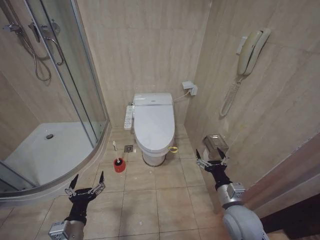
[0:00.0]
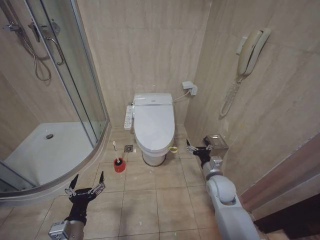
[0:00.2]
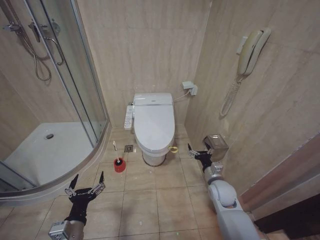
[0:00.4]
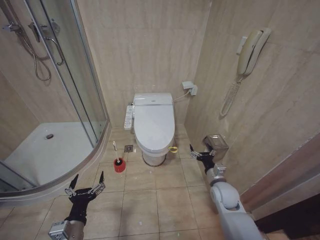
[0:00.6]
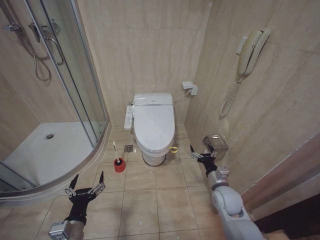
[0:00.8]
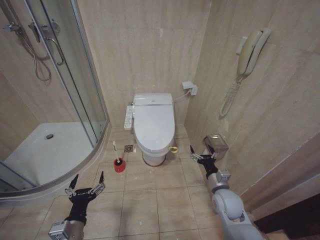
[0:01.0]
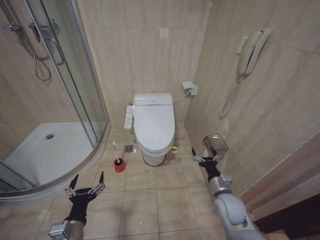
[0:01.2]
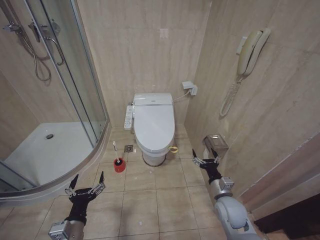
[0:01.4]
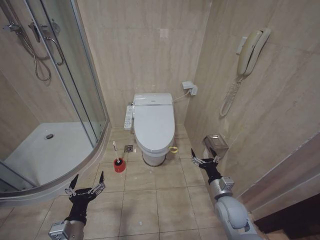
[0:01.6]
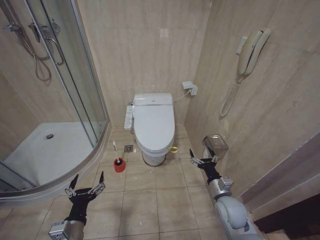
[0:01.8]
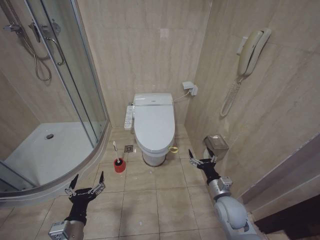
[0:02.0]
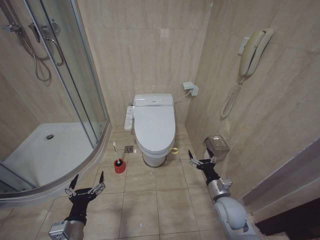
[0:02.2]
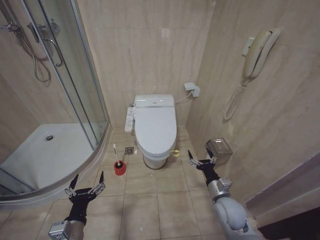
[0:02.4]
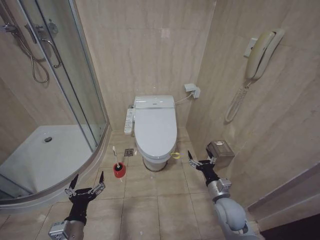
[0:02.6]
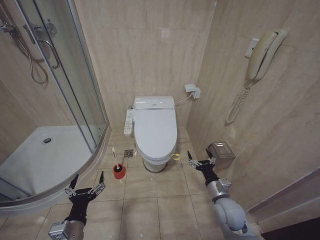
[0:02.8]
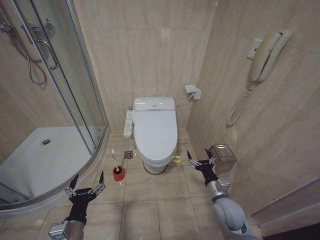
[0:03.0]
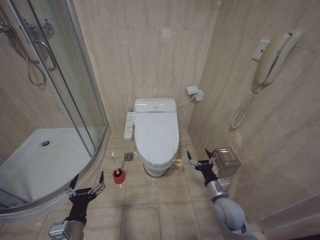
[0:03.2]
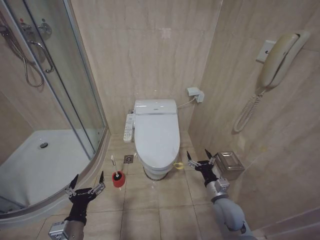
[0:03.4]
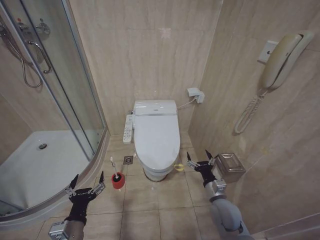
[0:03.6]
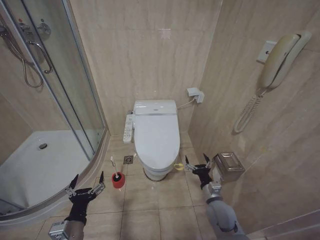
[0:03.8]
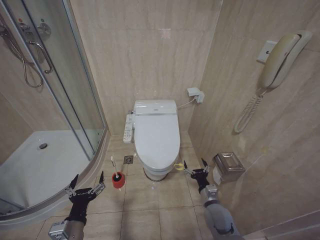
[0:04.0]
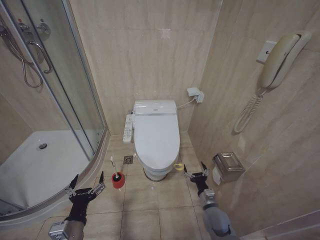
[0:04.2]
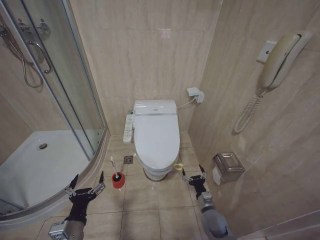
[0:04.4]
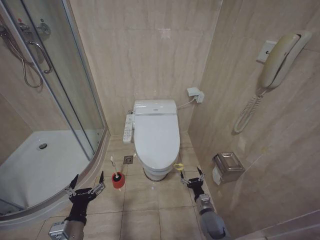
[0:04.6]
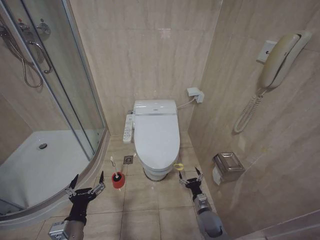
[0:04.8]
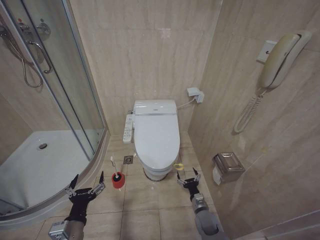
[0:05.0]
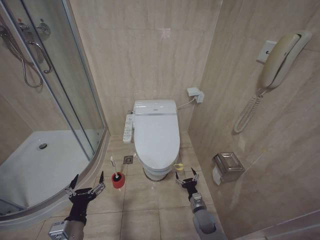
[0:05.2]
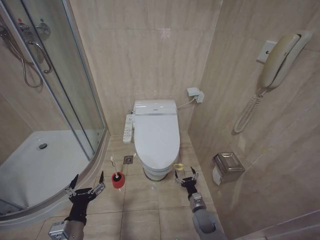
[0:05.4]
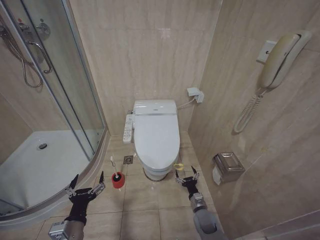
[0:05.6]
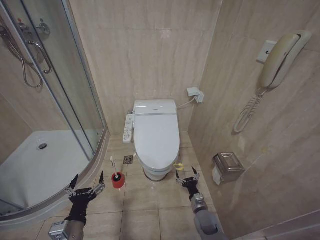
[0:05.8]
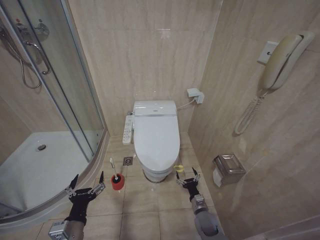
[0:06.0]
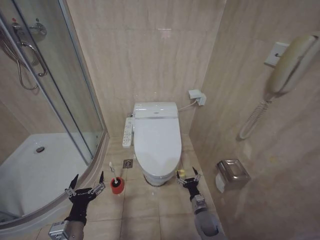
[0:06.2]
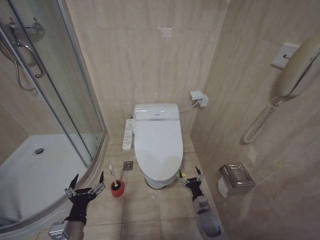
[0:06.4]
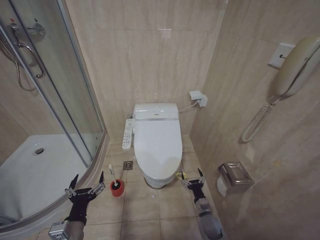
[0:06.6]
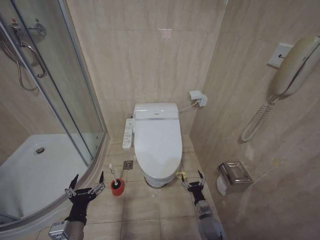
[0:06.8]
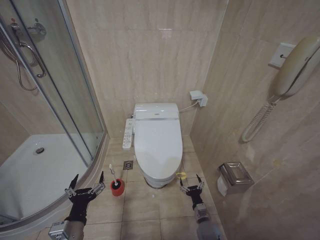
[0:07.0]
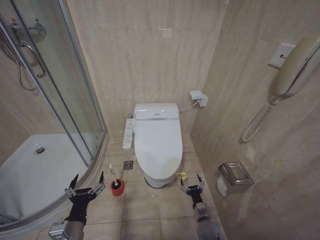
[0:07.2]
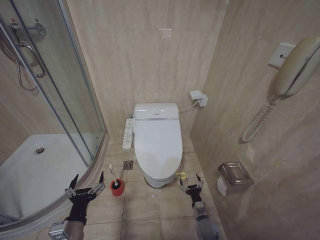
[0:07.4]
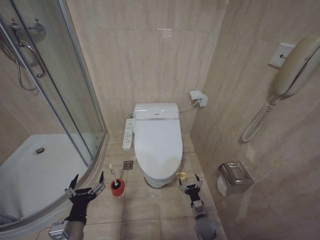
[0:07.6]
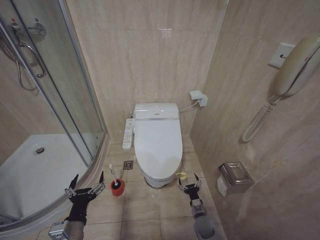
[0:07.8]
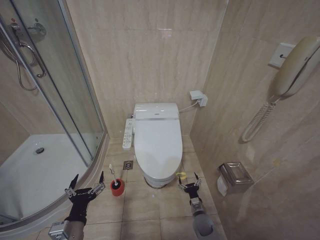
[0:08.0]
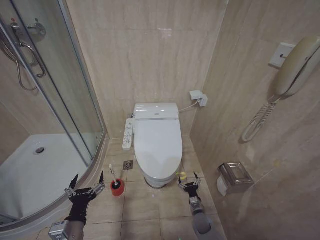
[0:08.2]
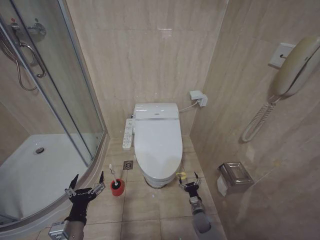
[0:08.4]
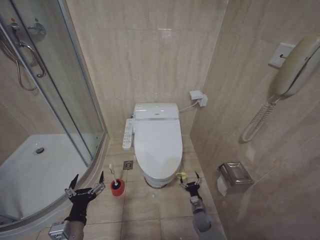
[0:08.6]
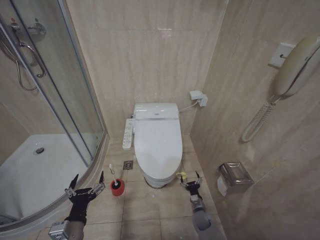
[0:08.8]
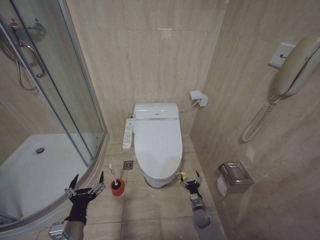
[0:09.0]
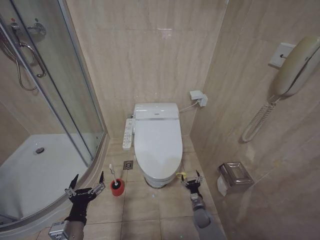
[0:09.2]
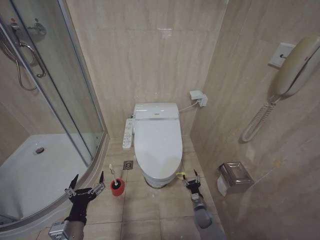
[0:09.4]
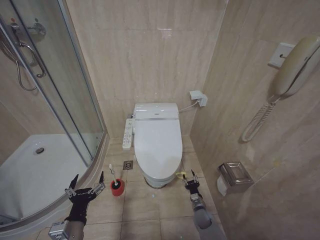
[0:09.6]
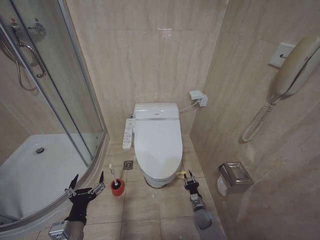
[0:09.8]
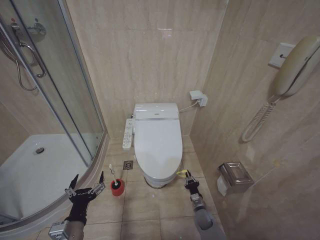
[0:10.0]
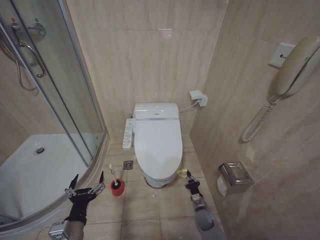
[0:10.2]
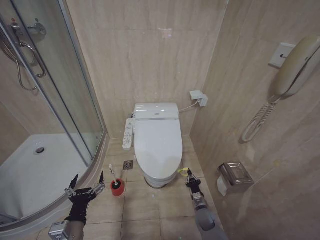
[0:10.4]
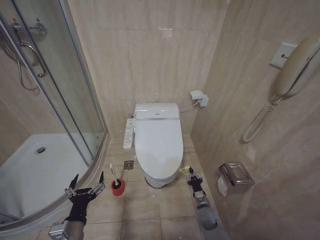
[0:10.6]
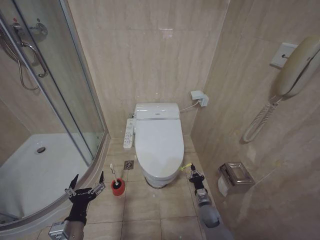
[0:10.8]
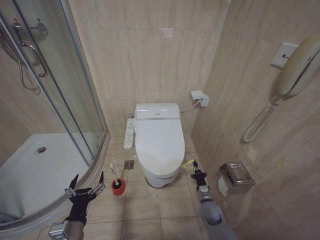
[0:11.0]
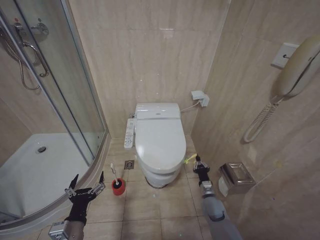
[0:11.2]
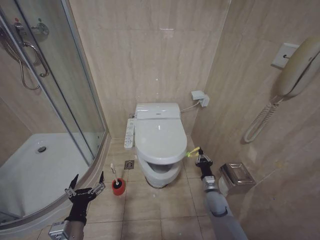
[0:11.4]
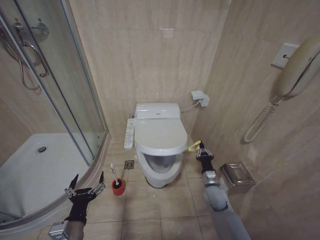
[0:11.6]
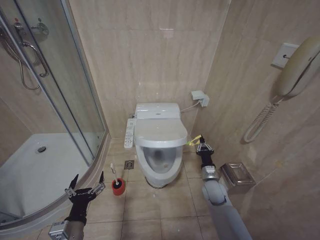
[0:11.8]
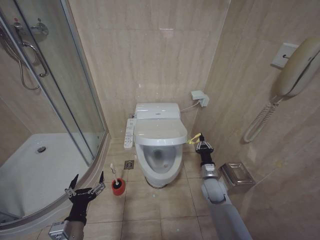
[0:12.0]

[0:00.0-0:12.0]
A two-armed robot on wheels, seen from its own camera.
Task of the whole recording: Open the toilet lid, clean the toilet bowl with a toilet brush, close the toilet lid, and flush.
0:01.6 to 0:03.0: Neither gripper changes place.
0:03.0 to 0:04.4: The right gripper moves downward, about 10 cm.
0:04.4 to 0:06.0: The right gripper shifts roughly 5 cm downward.
0:06.0 to 0:07.6: There are only small adjustments of the grippers.
0:10.4 to 0:12.0: The right gripper is displaced upward by some 20 cm.

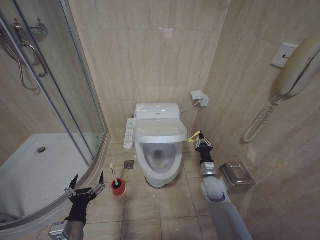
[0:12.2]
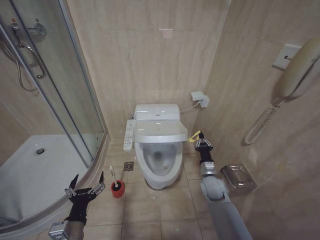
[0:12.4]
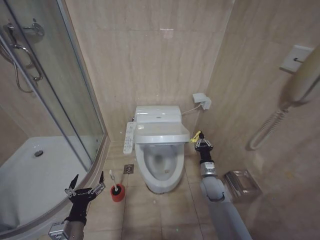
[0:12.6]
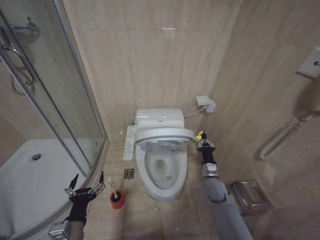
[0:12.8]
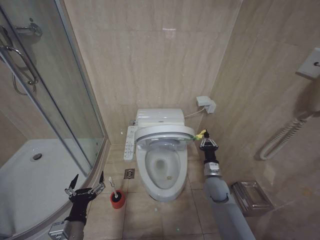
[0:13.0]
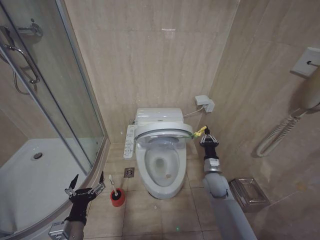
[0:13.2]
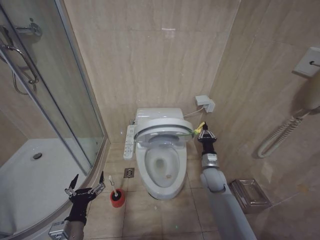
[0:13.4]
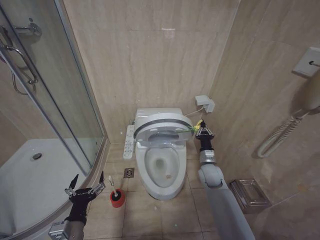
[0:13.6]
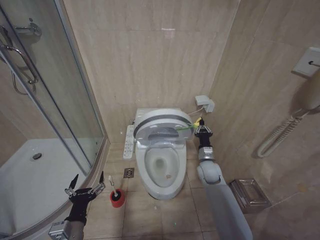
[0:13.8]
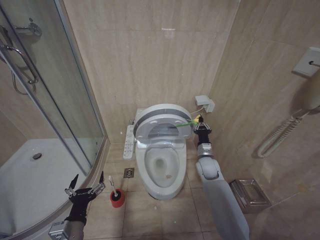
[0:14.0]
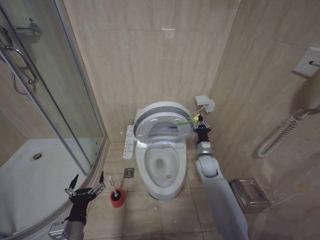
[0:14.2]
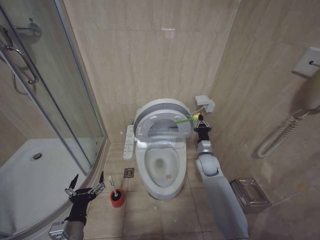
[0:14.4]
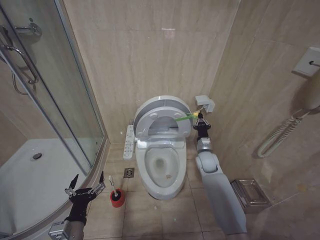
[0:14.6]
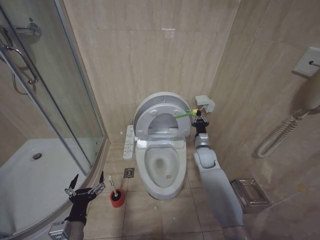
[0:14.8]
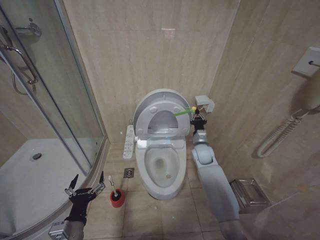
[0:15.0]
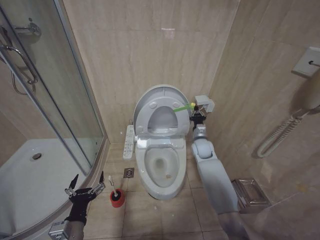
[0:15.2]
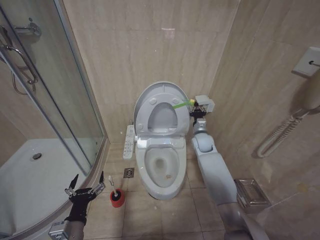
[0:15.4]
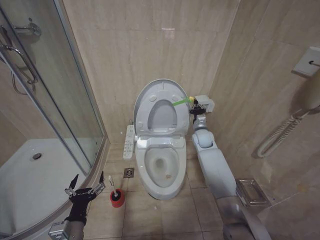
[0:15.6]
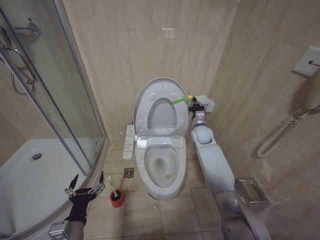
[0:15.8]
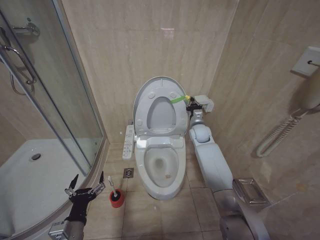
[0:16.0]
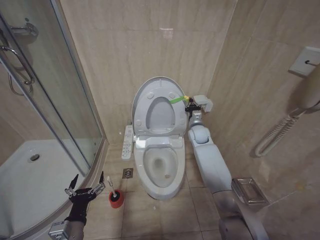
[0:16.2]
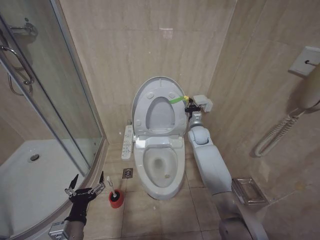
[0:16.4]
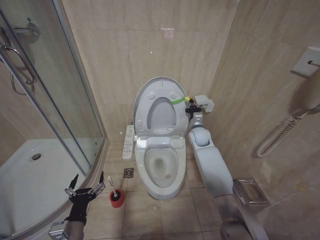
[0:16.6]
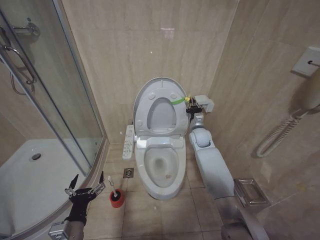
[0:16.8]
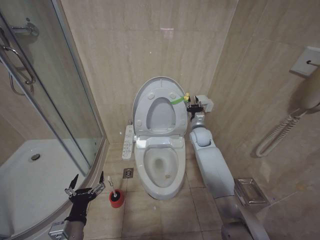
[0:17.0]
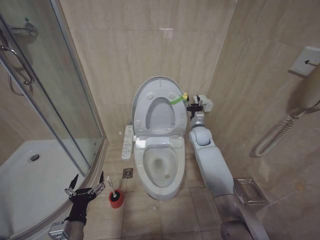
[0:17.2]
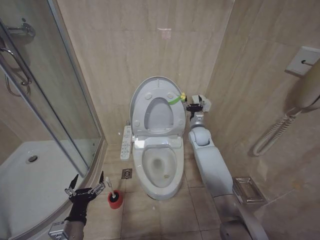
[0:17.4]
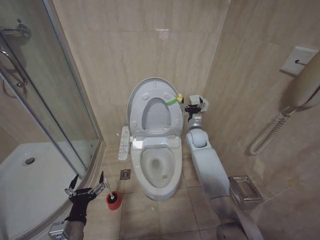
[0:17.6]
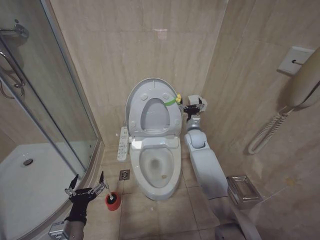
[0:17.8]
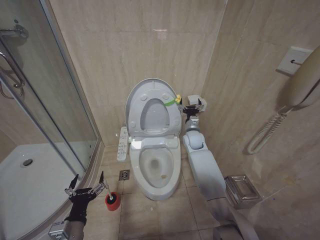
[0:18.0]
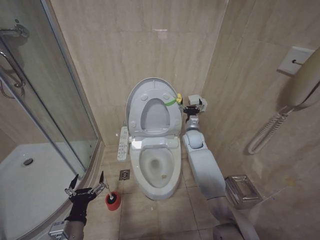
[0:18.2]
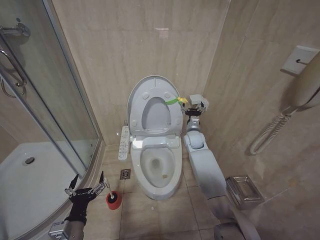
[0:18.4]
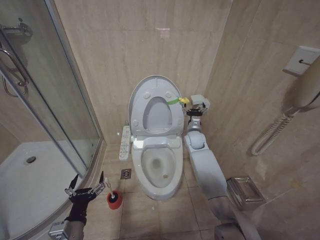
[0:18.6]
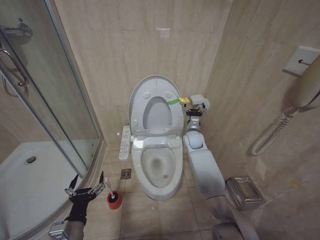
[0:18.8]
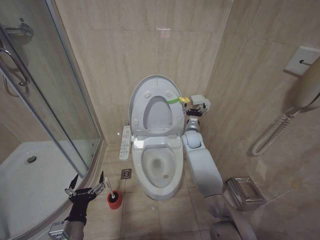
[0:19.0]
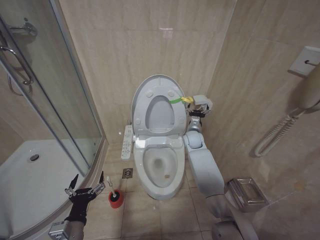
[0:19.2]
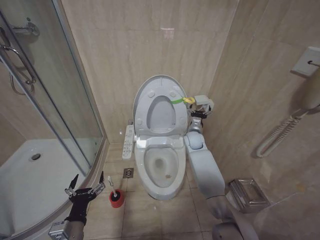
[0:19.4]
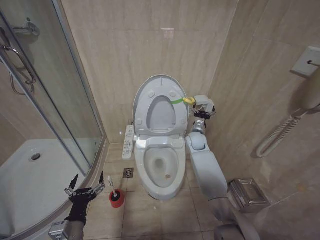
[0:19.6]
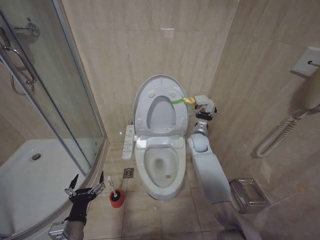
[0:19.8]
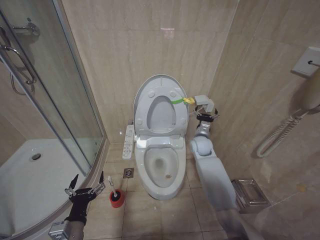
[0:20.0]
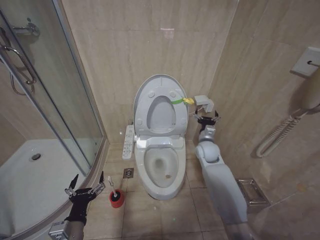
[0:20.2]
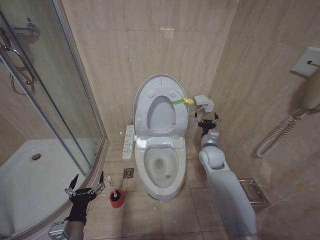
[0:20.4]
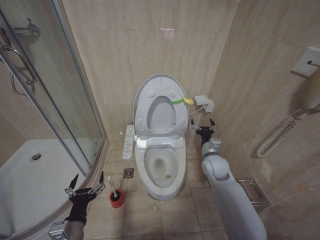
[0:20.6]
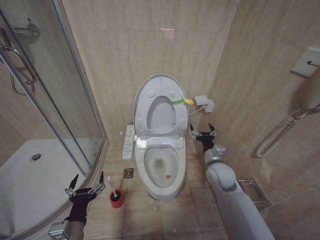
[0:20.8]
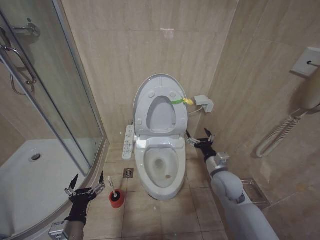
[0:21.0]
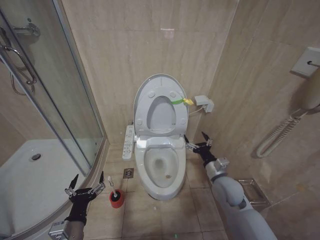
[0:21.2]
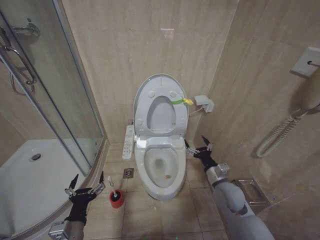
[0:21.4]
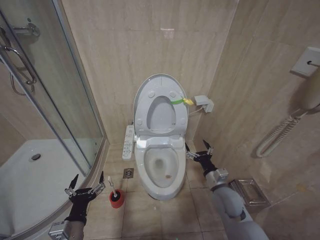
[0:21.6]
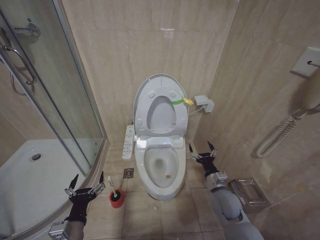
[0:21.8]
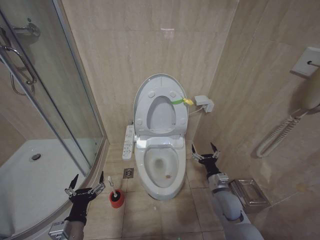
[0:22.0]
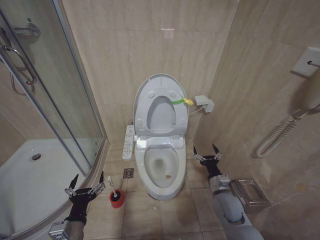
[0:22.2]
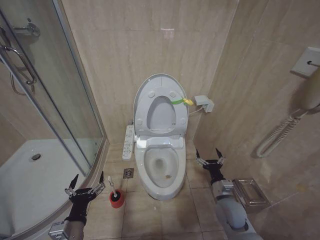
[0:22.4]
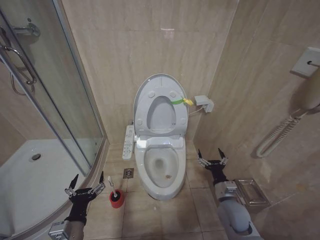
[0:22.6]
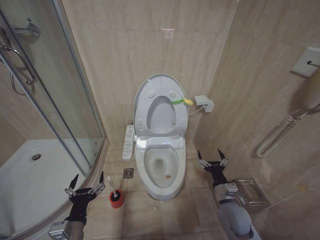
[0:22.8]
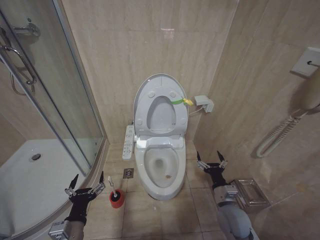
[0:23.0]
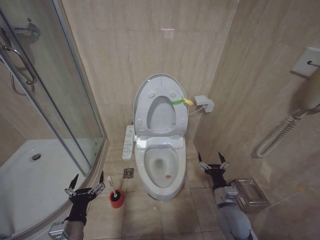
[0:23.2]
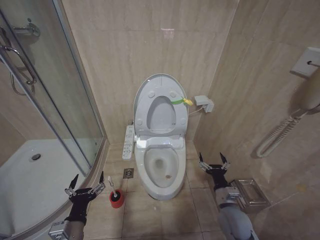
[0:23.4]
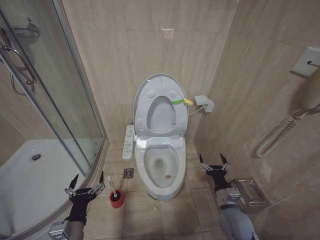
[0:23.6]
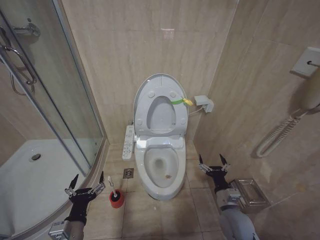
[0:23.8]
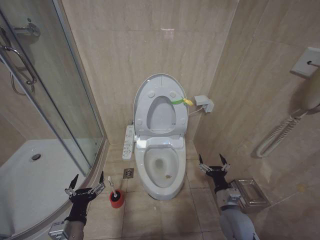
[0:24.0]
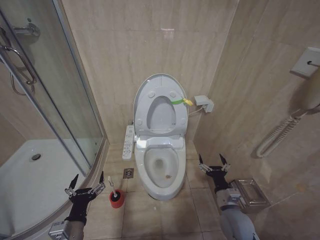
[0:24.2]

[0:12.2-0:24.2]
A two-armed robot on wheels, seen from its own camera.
Task of the whole recording: Open the toilet lid, clean the toilet bowl with a toilet brush, close the toilet lid, and flush.
0:12.2 to 0:13.8: The right gripper shifts by approximately 5 cm.
0:13.8 to 0:15.2: The right gripper travels forward and upward by about 10 cm.
0:15.2 to 0:16.6: The right gripper is displaced upward by approximately 5 cm.
0:16.6 to 0:18.2: The right gripper opens its fingers.
0:18.2 to 0:19.8: The grippers move only a little.
0:19.8 to 0:21.2: The right gripper goes roughly 20 cm backward.
0:21.2 to 0:22.6: The right gripper shifts some 10 cm downward and backward.
0:22.6 to 0:24.2: There are only small adjustments of the grippers.
